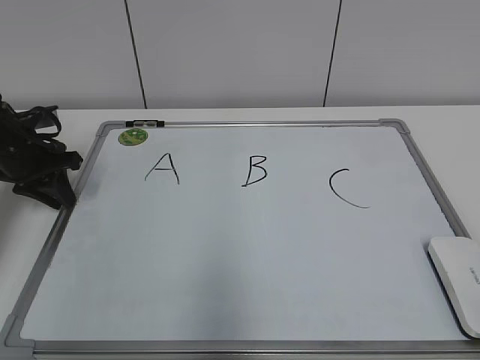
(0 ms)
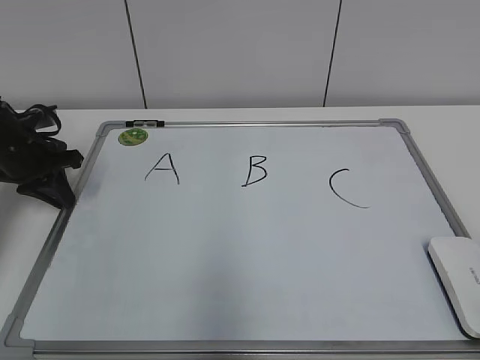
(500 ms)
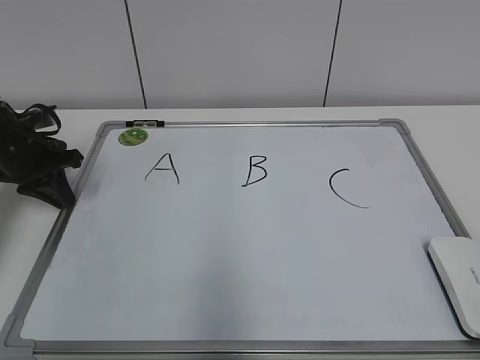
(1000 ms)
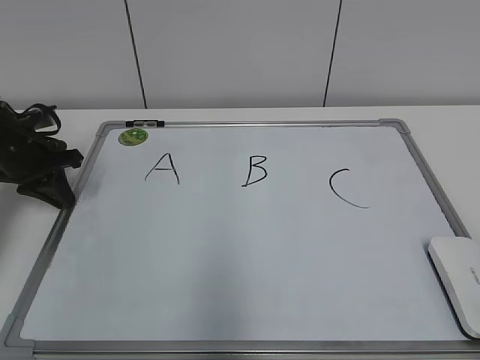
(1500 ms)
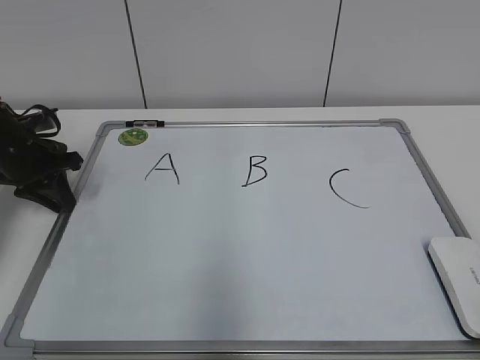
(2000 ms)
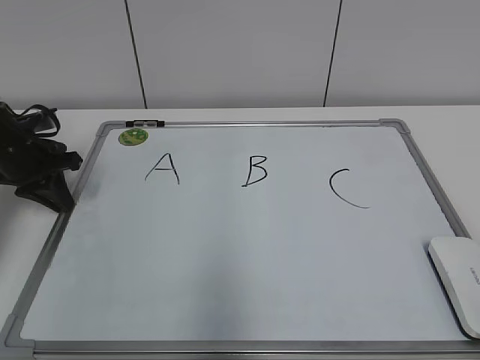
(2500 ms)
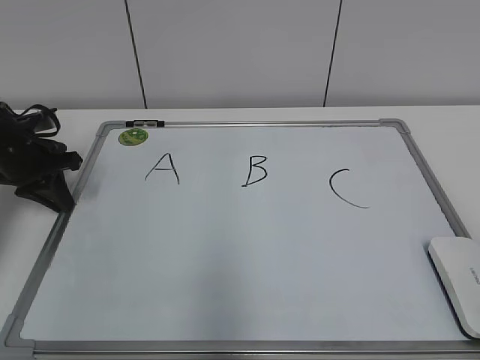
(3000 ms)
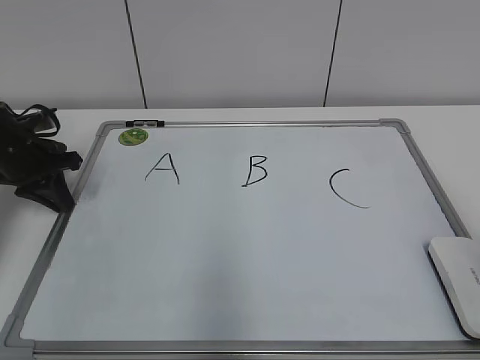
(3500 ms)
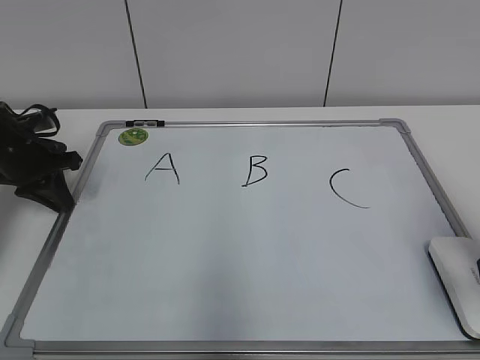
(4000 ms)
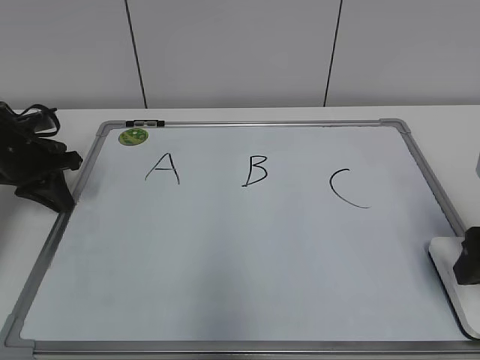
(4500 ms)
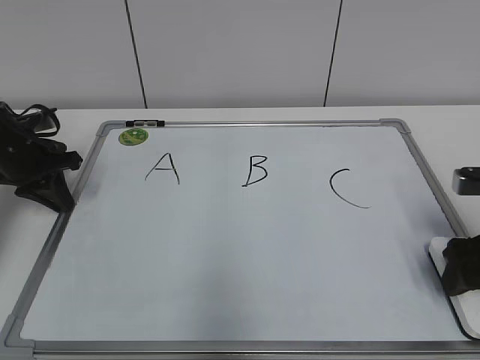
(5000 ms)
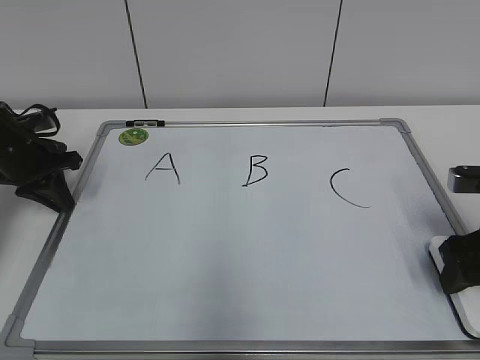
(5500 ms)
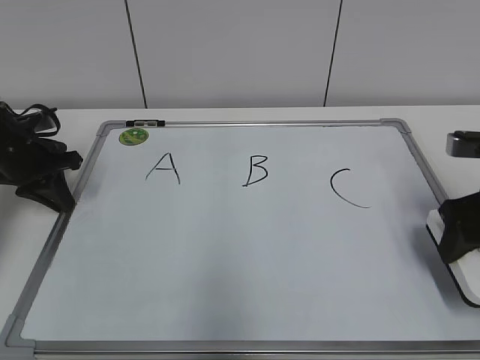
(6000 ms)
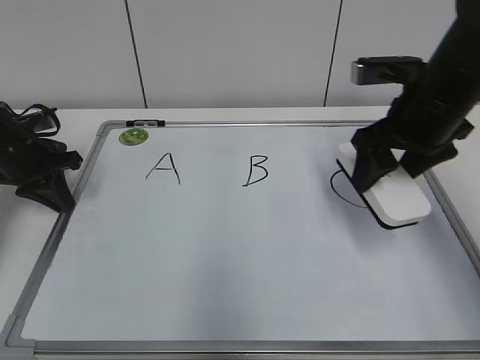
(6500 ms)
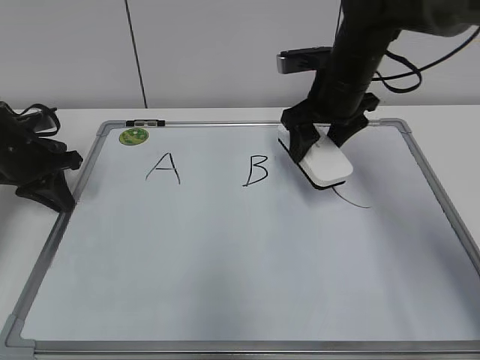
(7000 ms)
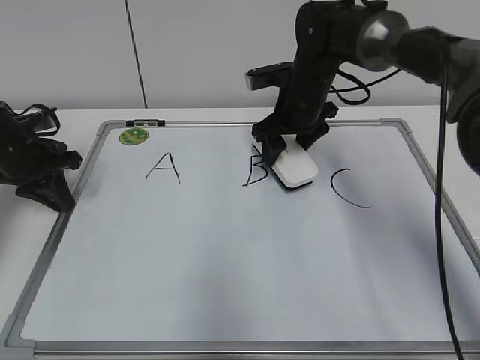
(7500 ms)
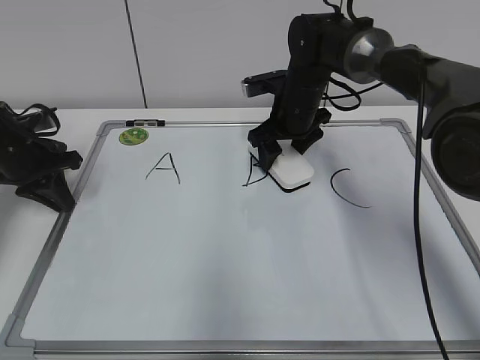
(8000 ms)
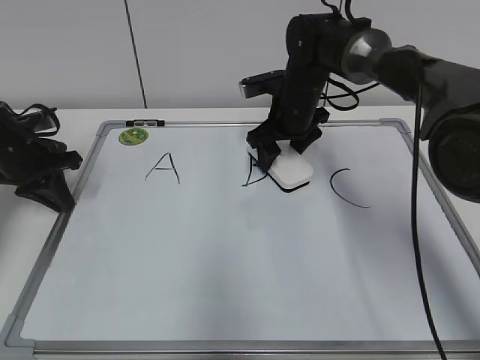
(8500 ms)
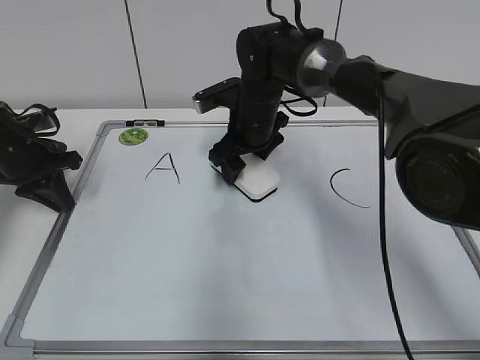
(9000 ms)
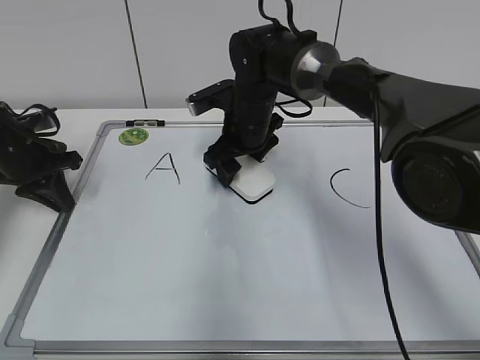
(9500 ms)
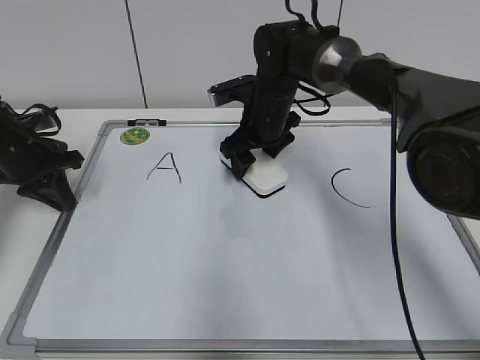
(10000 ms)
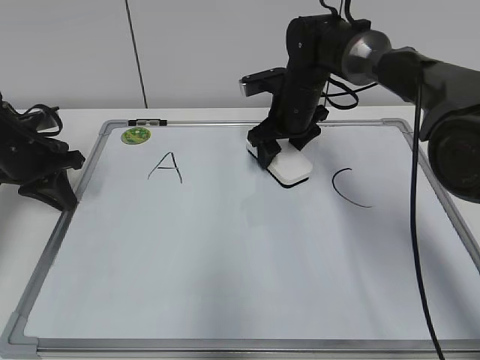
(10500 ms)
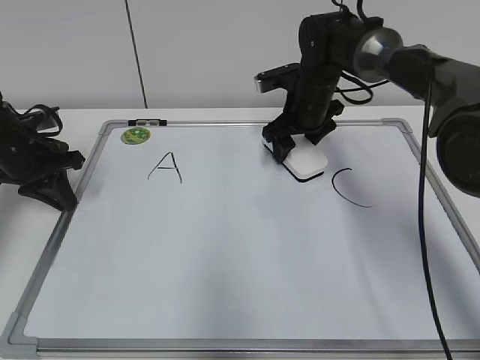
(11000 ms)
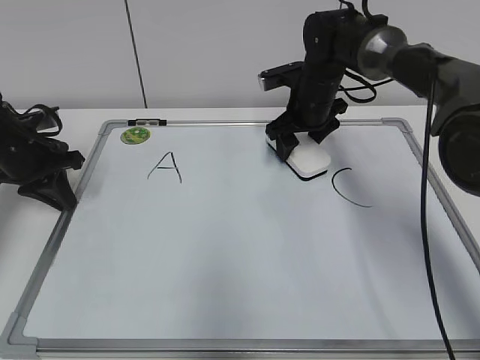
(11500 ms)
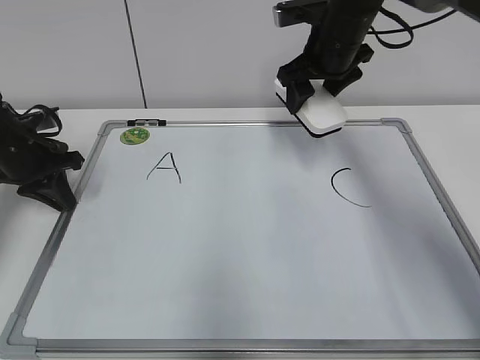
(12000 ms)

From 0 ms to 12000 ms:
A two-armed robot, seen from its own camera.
Task of the whole recording: pick up the eraser on the blackboard and erase the letter "B".
Step, from 1000 ms to 5500 ms: Grab the eraser with your right hand.
Step, from 6000 ms to 10500 ms: Erase the letter B with your right hand.
From 0 ms to 2000 ms: Both grippers stay put.
From 2000 ms to 4000 ms: The right gripper moves forward, approximately 20 cm, and opens.
From 4000 ms to 6000 ms: The right gripper goes roughly 10 cm forward, and closes up.
From 6000 ms to 8000 ms: The right gripper shifts approximately 30 cm forward and to the left.
From 10000 ms to 12000 ms: The right gripper heads upward and to the right, covering about 15 cm.

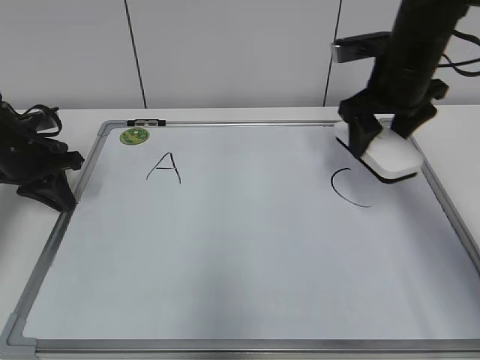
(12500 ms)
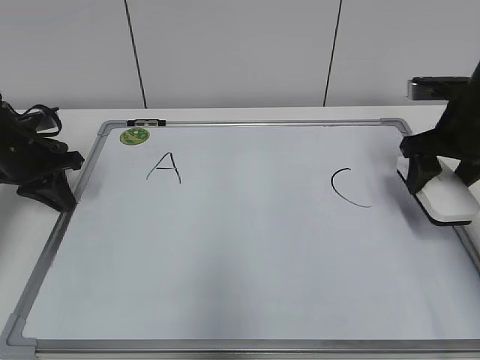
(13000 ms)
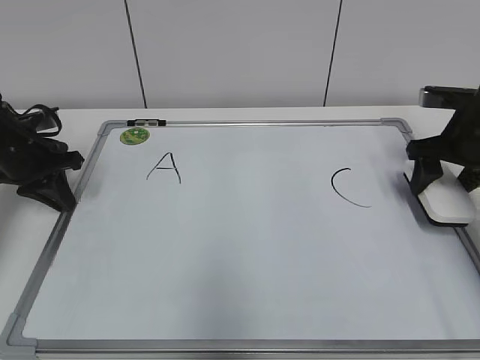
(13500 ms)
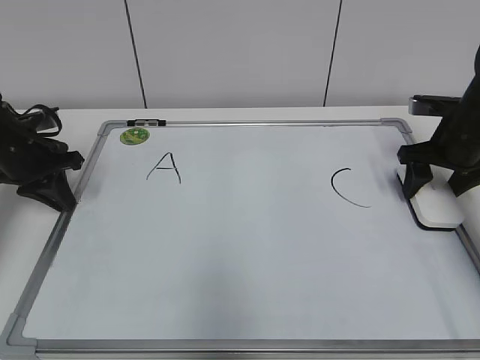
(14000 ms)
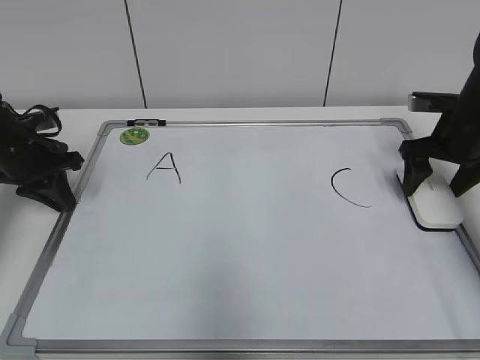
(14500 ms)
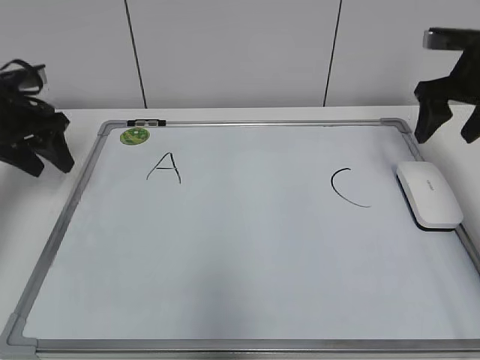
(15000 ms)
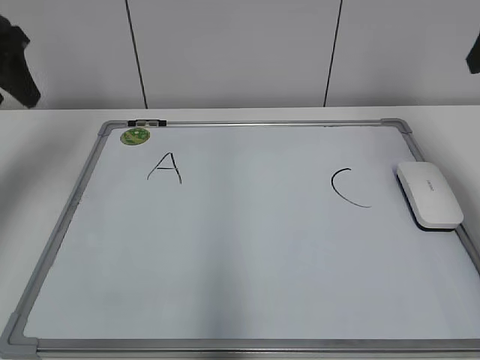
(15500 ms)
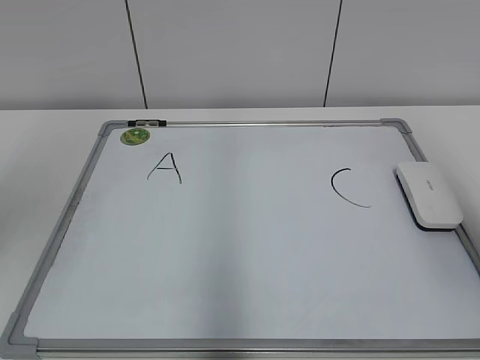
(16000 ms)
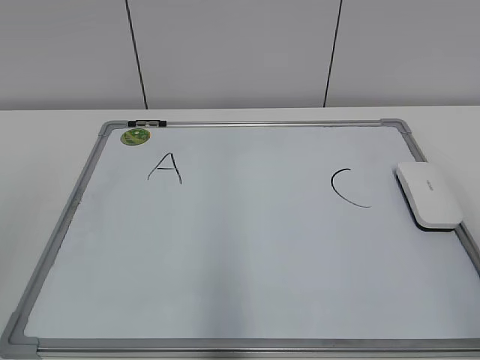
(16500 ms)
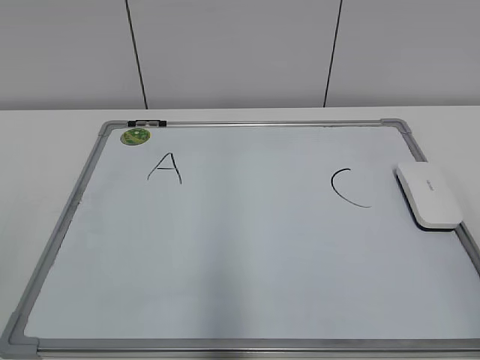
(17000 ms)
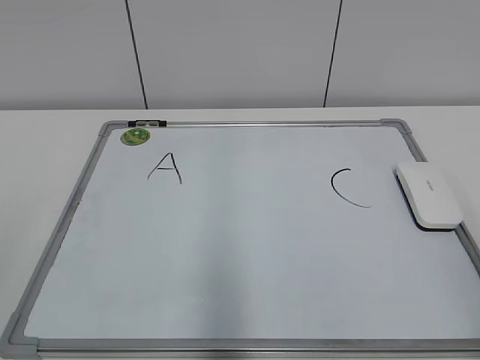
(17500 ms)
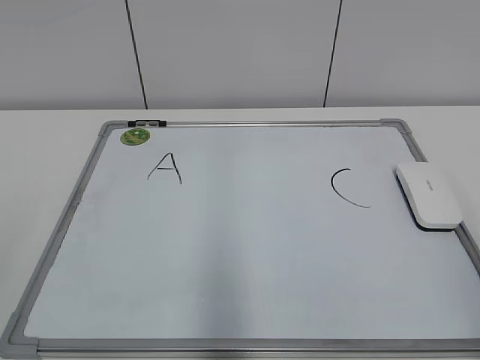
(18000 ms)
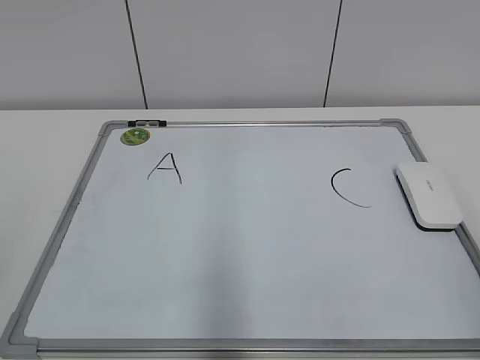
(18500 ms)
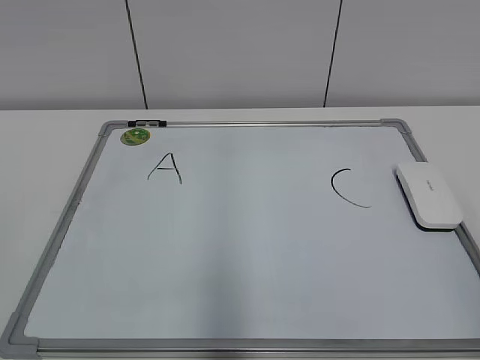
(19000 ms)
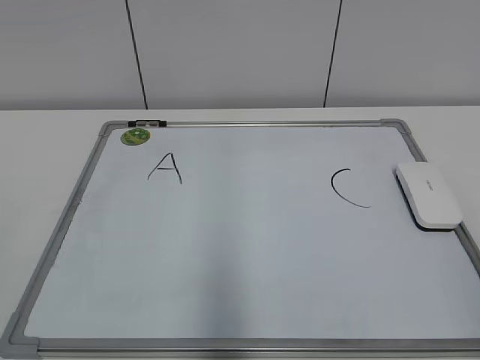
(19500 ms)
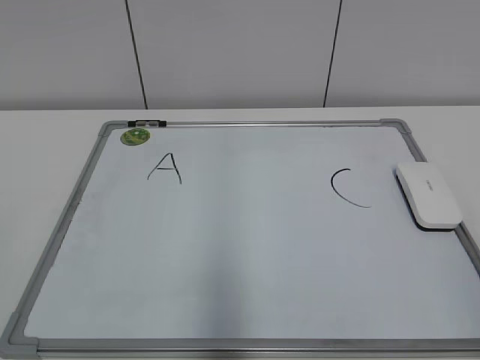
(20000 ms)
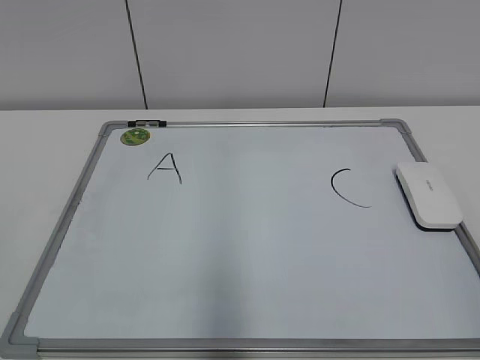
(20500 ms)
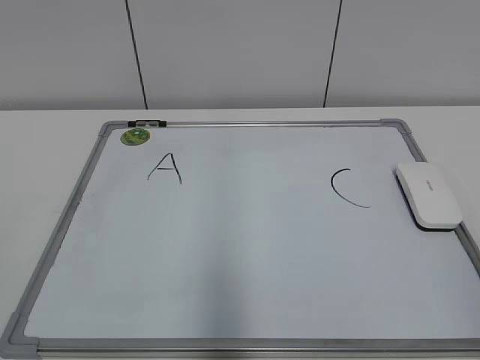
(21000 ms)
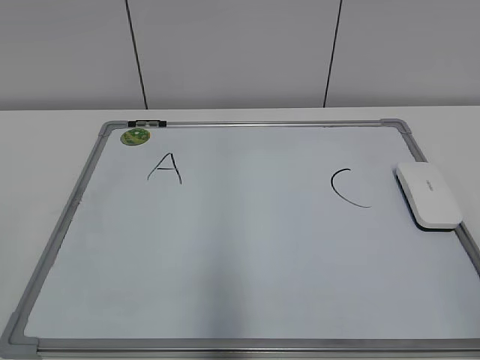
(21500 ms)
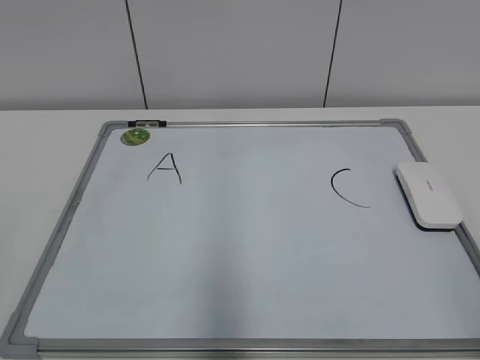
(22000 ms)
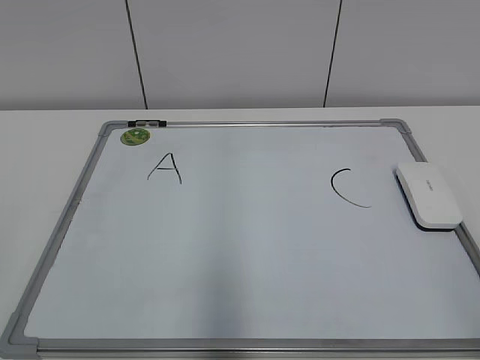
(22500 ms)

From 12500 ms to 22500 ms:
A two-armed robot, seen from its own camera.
Task of the whole recording: pick up the eraser on the blackboard and erase the letter "B".
From 12500 ms to 14500 ms: The right gripper is displaced to the right and downward by about 15 cm, and opens.
From 14500 ms to 16500 ms: Both grippers move backward and upward, roughly 40 cm. The right gripper closes up. Meanwhile the left gripper opens.

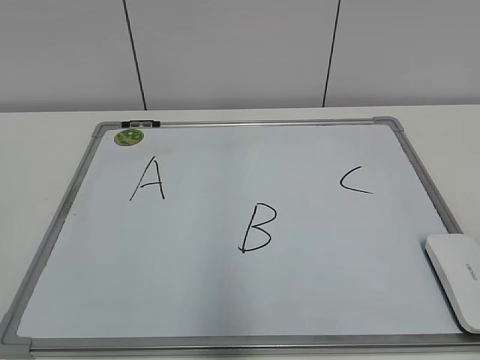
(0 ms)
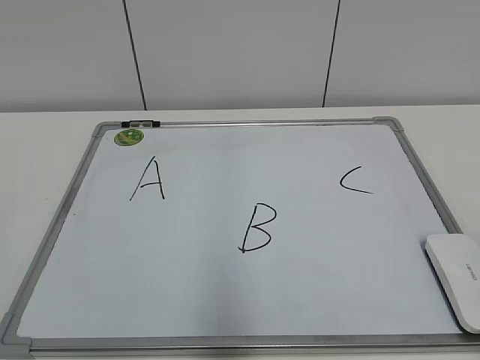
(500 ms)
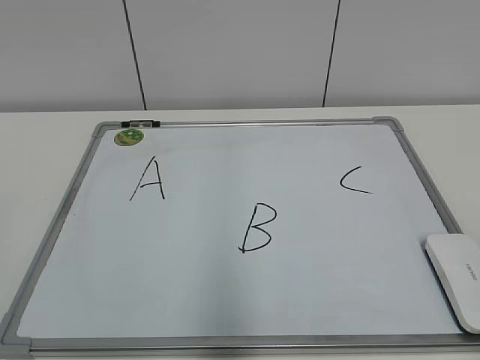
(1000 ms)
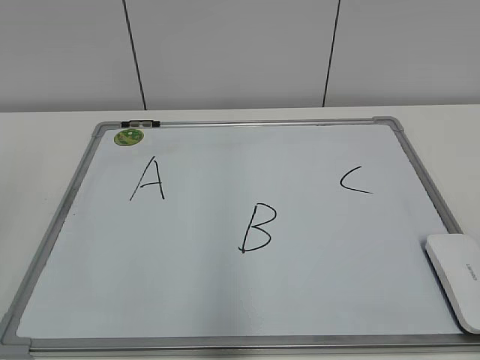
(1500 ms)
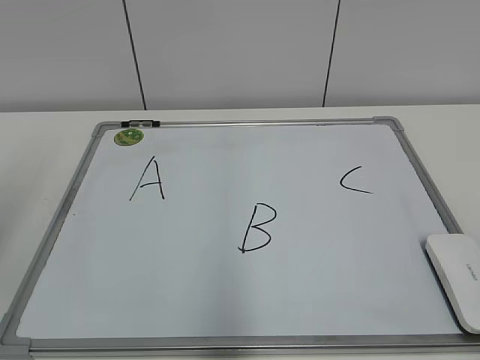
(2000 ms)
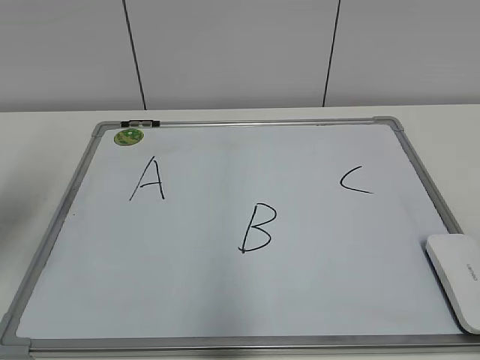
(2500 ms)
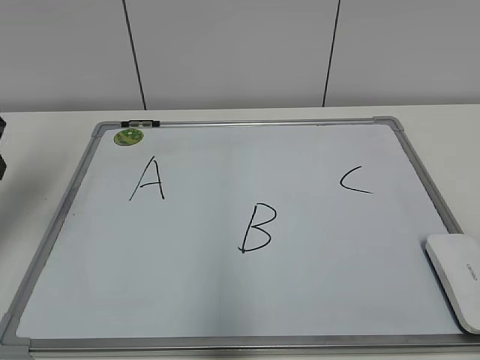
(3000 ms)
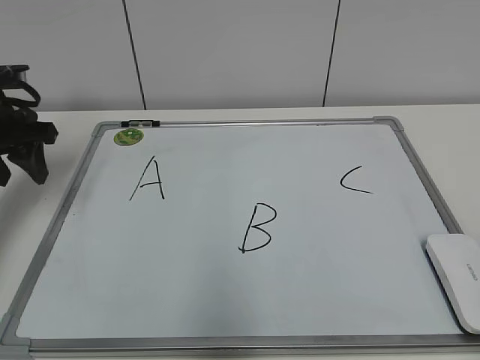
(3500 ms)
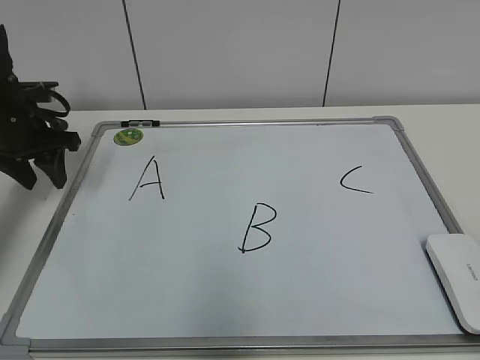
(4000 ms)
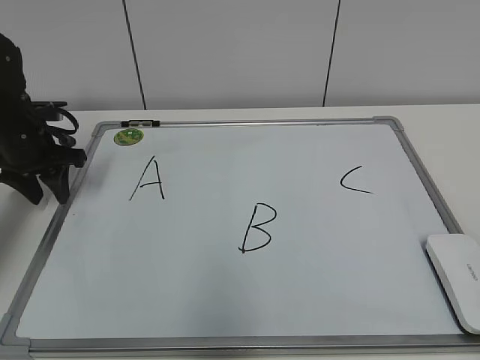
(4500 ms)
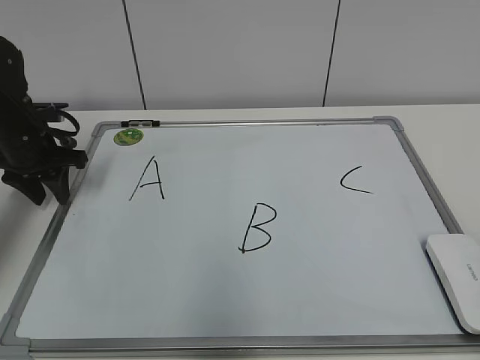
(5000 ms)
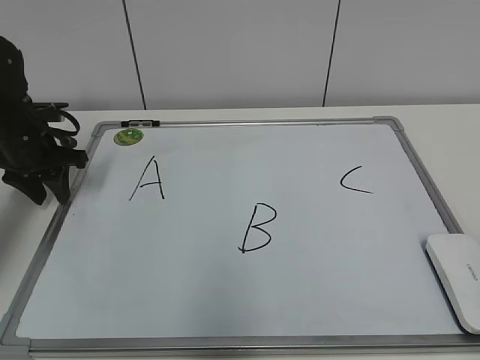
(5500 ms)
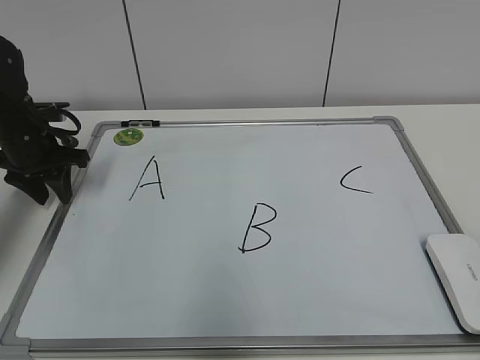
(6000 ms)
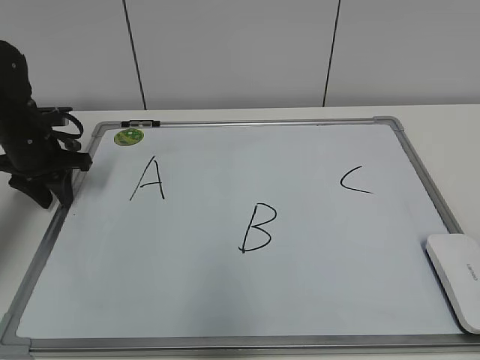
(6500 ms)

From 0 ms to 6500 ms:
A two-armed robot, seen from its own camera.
Task of the whole recording: pick up the eraser on the blackboard and erase the letter "B".
From 2000 ms to 4500 ms: The left gripper moves forward and downward, about 30 cm.
From 4500 ms to 6500 ms: Both grippers stay about where they are.
